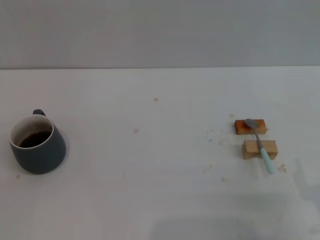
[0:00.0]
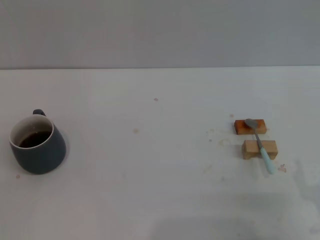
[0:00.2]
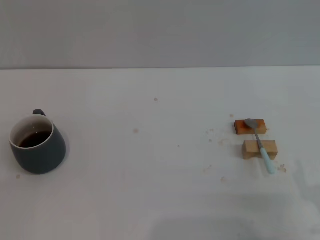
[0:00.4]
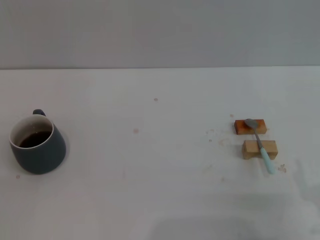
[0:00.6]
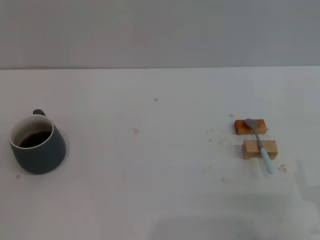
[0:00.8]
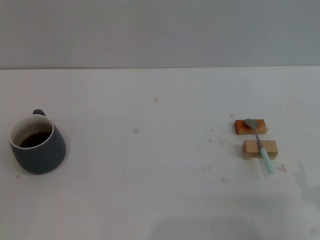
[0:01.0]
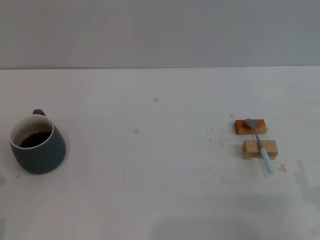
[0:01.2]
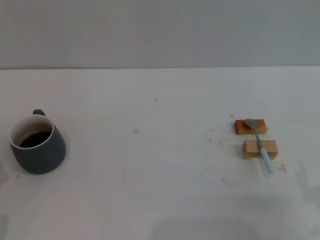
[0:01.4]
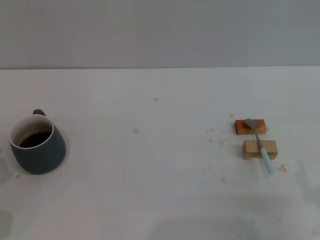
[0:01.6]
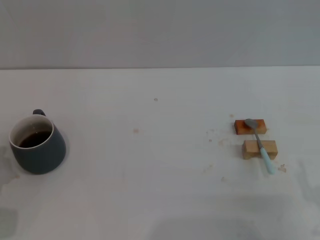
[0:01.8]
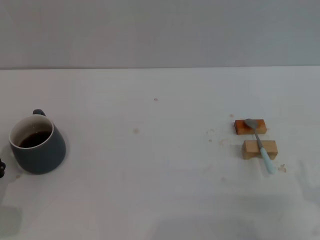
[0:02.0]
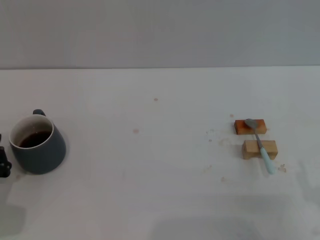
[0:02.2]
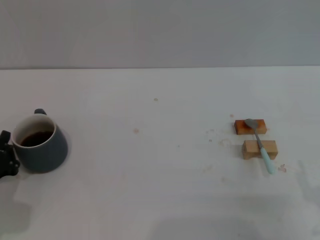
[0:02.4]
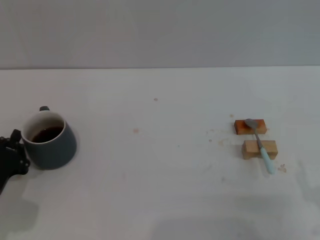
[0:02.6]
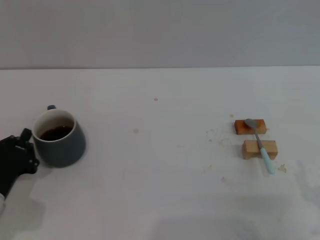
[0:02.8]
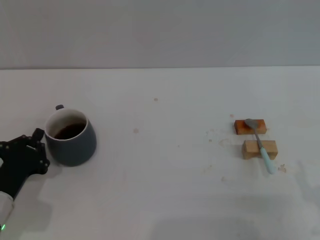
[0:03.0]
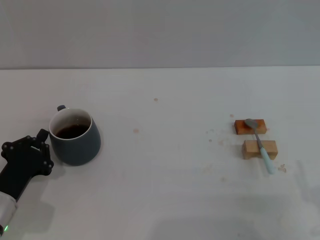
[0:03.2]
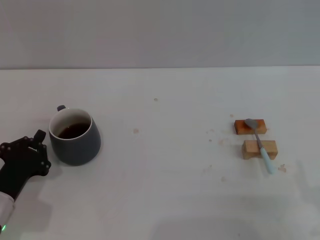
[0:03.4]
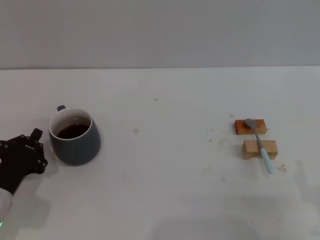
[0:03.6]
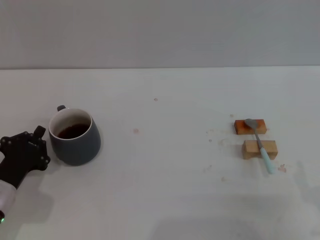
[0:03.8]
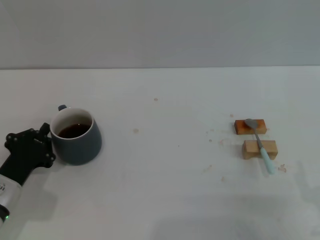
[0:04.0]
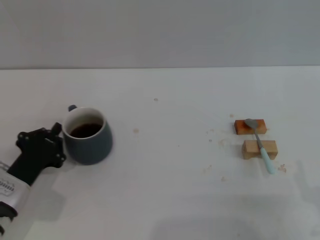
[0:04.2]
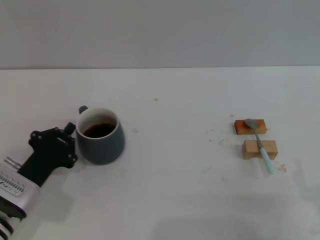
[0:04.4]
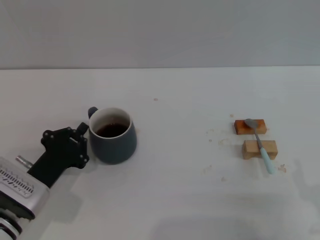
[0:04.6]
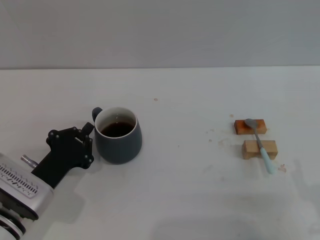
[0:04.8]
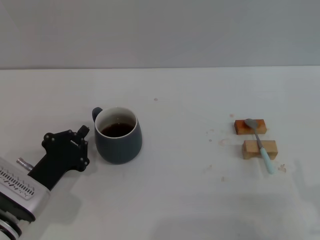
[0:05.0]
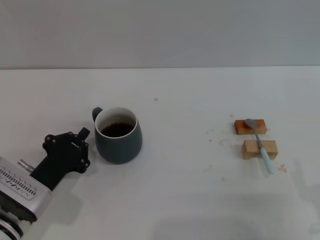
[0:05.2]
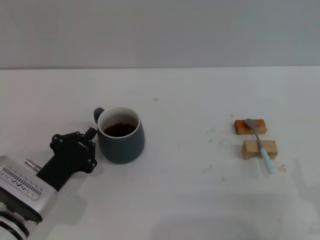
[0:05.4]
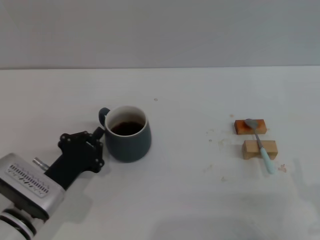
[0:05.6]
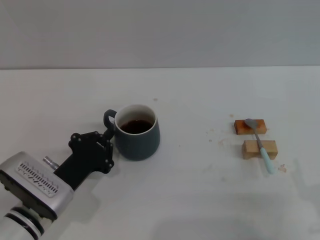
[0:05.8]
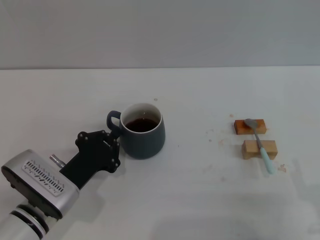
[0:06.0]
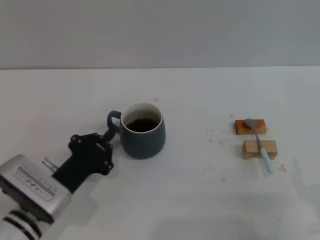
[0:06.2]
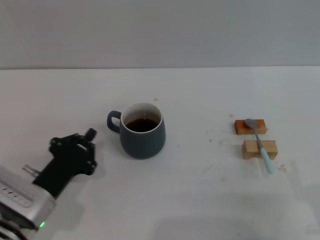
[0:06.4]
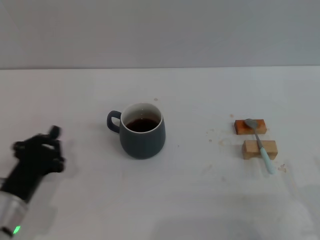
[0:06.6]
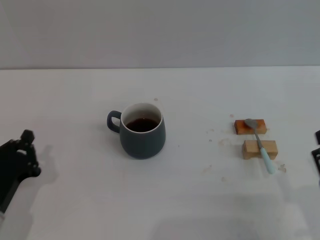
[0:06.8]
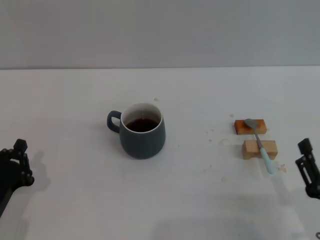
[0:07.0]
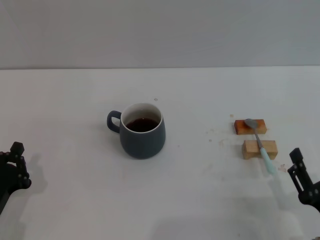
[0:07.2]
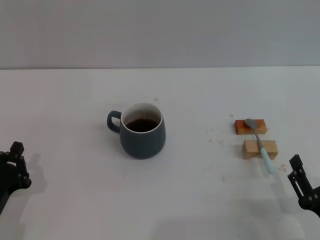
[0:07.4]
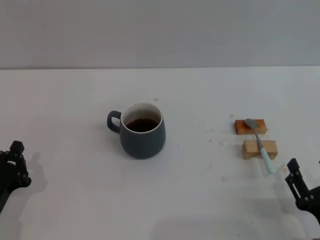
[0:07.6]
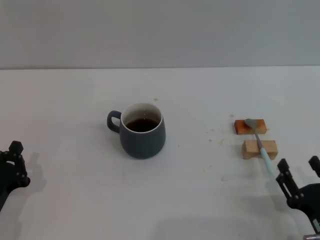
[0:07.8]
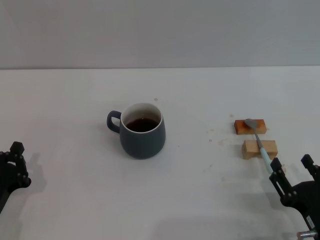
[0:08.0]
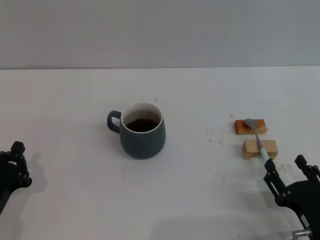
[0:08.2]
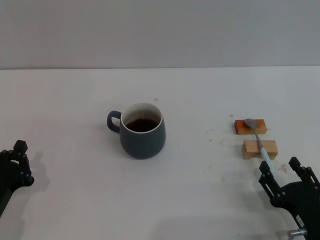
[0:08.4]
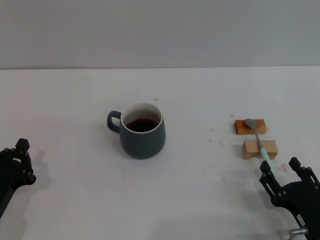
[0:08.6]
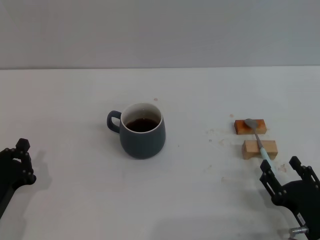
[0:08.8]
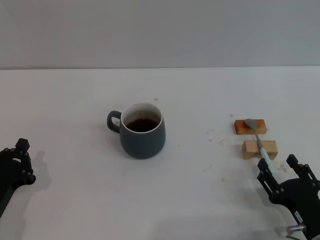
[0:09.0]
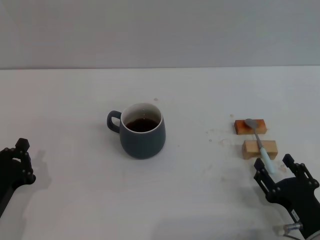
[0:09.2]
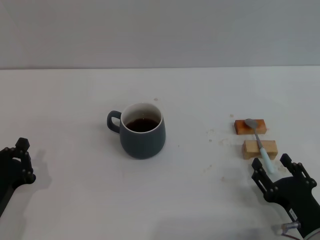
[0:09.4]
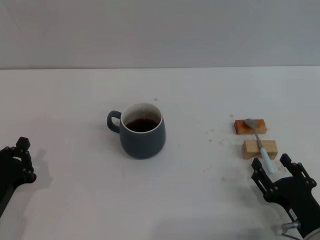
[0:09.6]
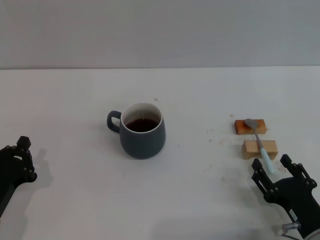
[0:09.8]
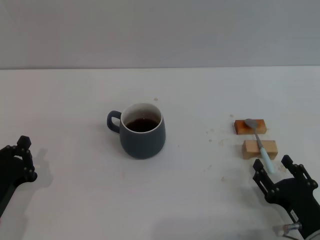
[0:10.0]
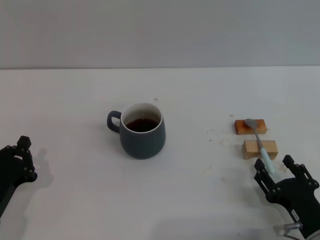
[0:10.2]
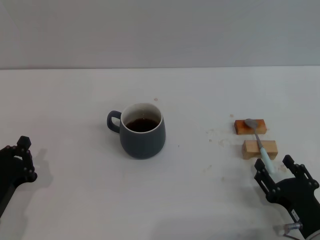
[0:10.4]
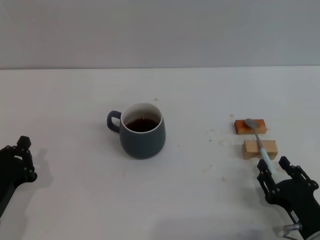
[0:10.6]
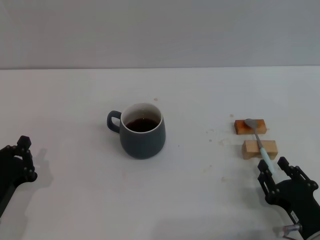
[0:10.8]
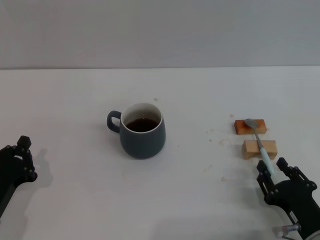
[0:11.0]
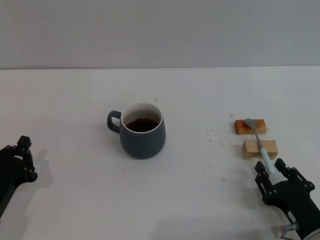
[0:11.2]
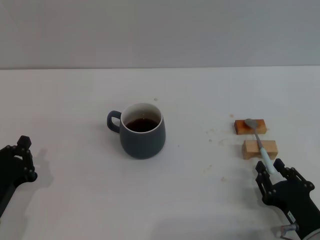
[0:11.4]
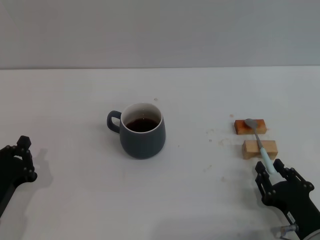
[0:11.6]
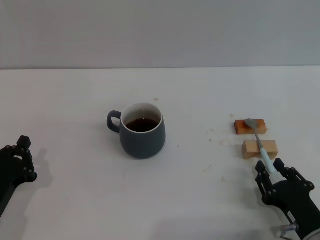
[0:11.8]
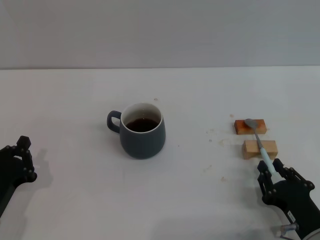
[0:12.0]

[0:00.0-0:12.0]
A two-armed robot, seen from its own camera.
Task of the whole recording: Move the grey cup to the center, lift the blue spoon, stir it three times in the cup, and put the spoon into the cup.
Step, 0:00.0 to 0:06.2: Move the cup with coffee to the center of view with the left gripper.
0:01.6 to 0:03.0: The left gripper is displaced to the right by roughly 5 cm.
0:03.0 to 0:04.4: The grippers move only a little.
0:04.4 to 0:06.0: The left gripper shifts some 5 cm to the right.
0:06.0 to 0:07.6: The left gripper heads to the left and backward, covering some 10 cm.
0:07.6 to 0:09.0: The grippers make only small movements.
0:09.0 to 0:10.4: Neither gripper changes place.
0:10.4 to 0:12.0: The right gripper closes.

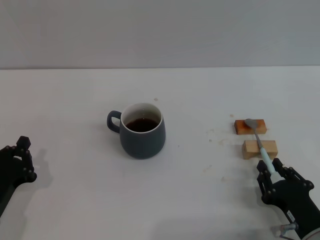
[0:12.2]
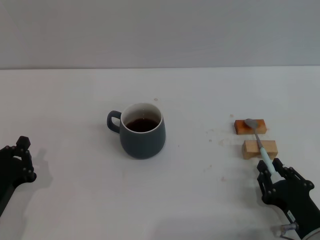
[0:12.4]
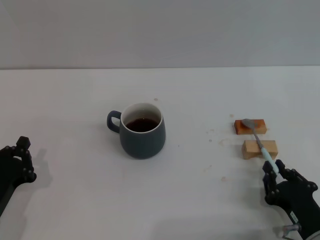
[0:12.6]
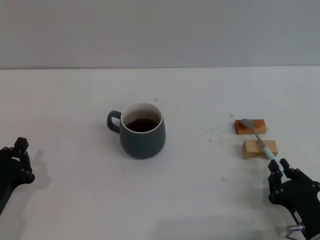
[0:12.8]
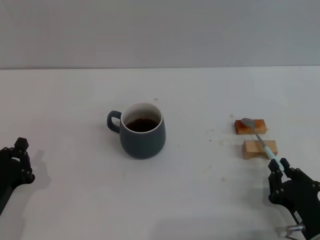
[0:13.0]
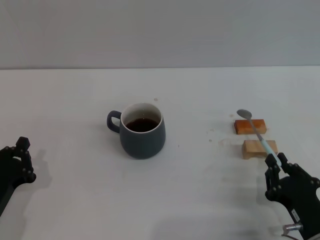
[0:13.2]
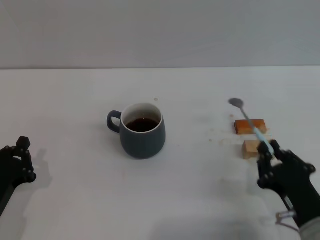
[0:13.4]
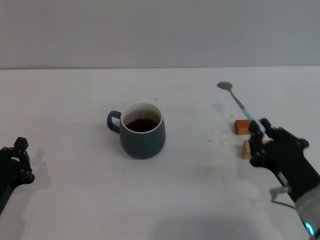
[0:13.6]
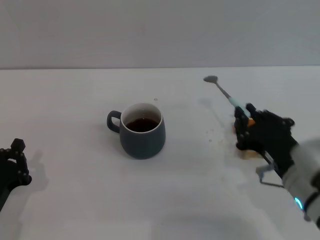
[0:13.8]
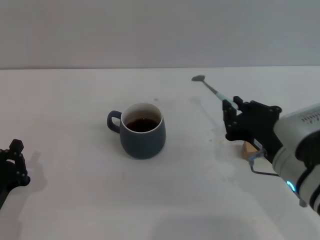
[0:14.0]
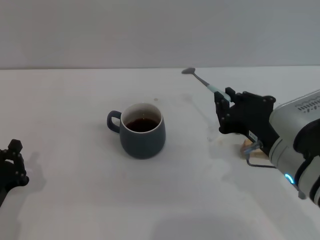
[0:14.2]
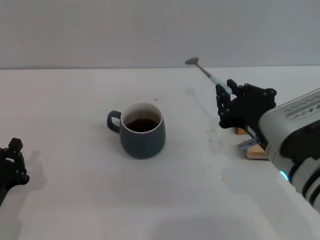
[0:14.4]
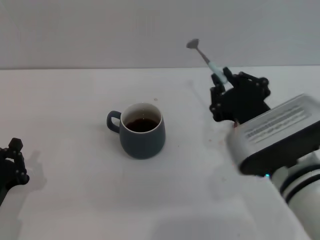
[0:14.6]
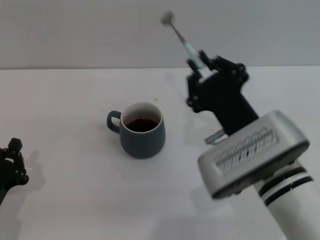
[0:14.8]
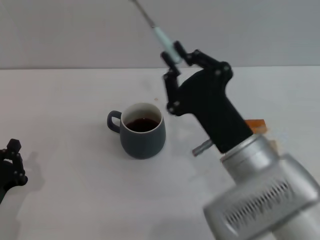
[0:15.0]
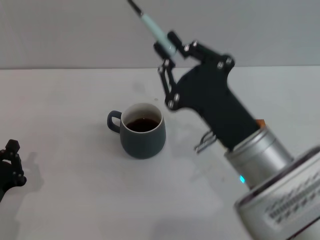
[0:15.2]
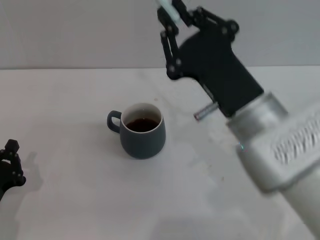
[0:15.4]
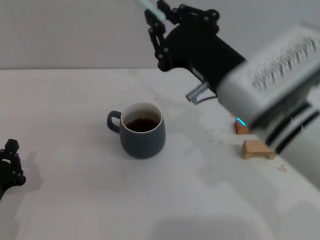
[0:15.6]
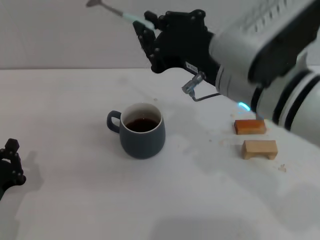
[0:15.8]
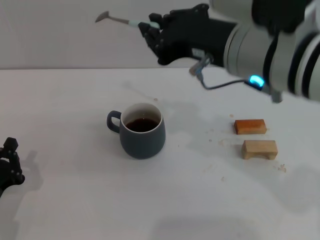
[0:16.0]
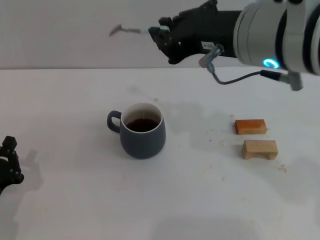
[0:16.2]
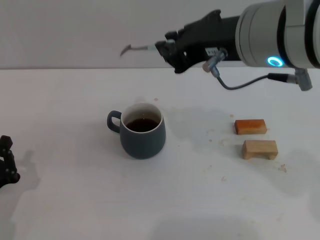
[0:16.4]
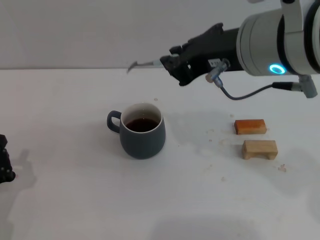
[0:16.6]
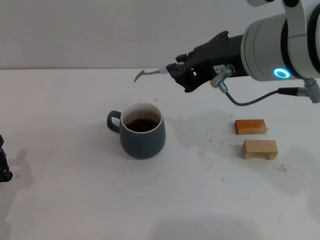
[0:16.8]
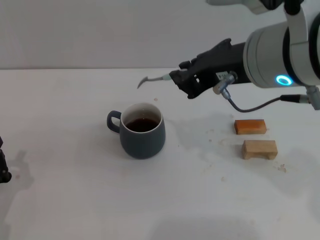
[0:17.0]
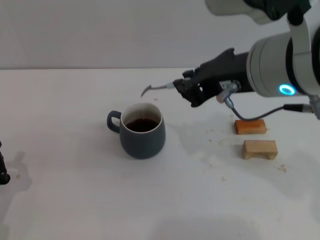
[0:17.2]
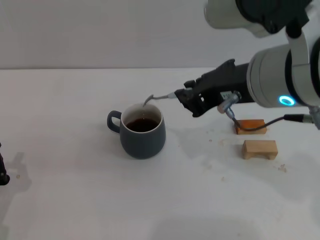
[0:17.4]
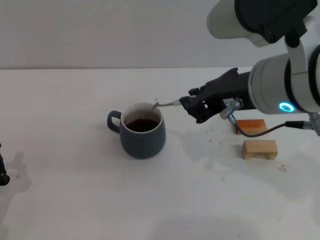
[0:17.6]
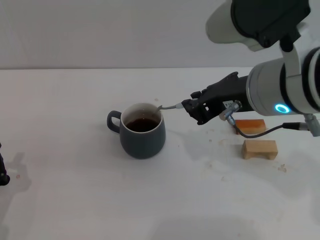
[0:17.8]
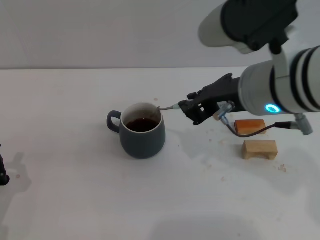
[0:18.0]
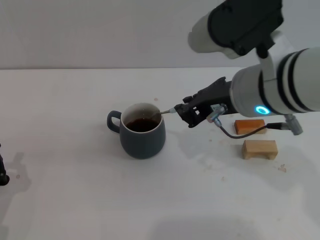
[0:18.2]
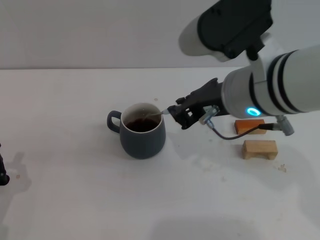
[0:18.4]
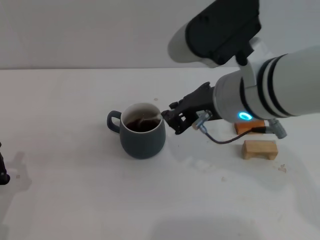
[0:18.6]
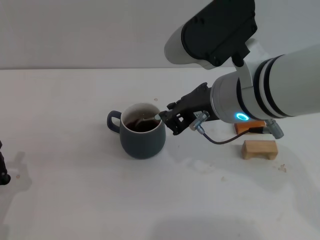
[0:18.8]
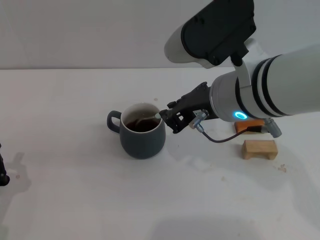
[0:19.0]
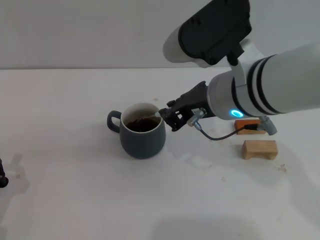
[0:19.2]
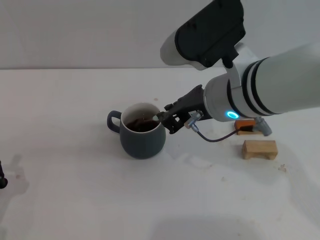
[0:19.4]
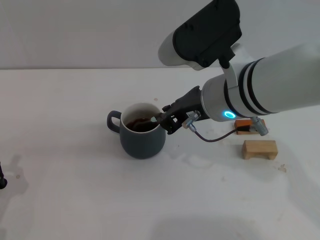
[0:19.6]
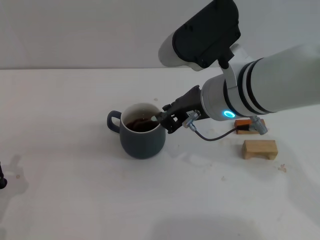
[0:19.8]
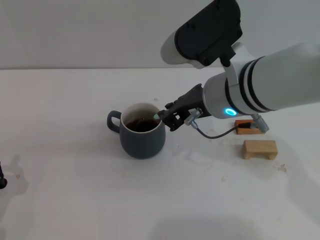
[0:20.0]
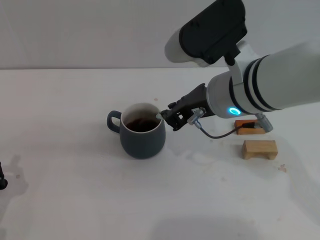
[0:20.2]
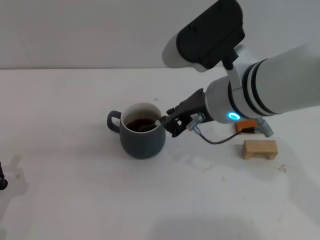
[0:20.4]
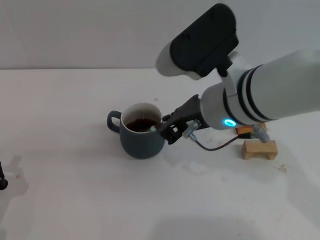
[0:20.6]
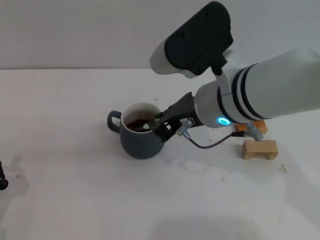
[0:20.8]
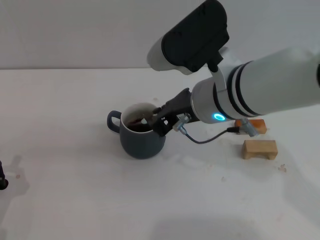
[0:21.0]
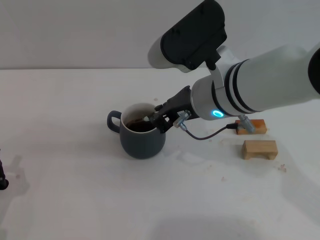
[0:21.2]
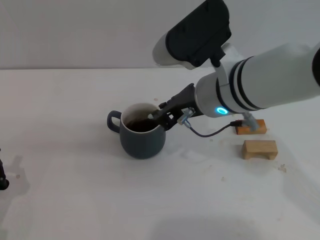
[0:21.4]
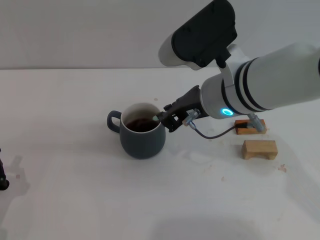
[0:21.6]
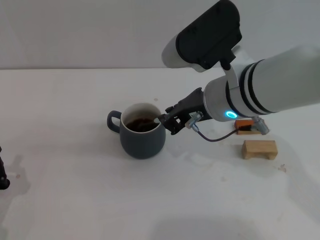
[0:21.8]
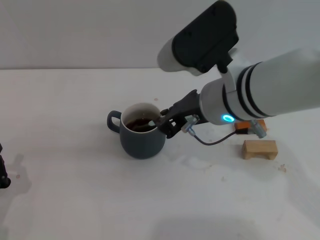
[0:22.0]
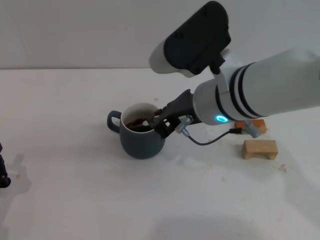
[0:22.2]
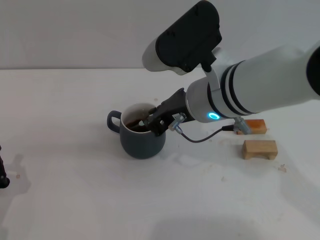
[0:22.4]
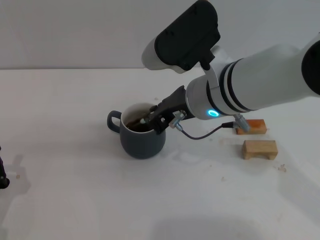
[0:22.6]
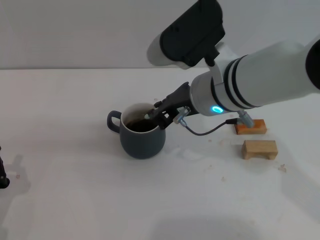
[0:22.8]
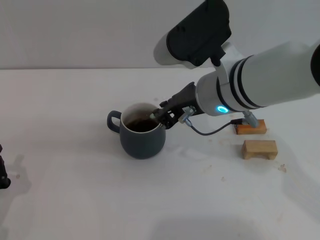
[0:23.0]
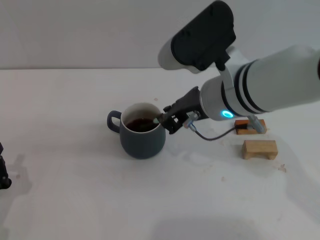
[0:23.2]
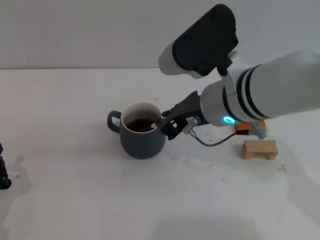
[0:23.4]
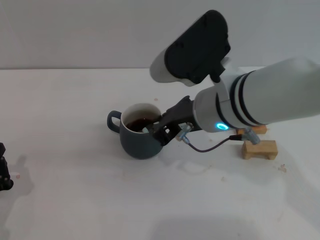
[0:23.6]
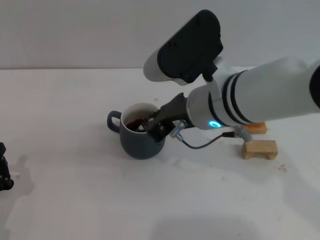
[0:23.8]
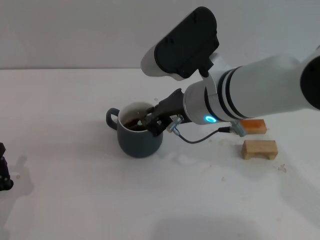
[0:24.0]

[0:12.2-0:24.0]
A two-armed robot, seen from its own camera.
Task of the whole recording: Move the grey cup to the center, lift the blue spoon, stir it three times in the cup, and put the spoon into the cup.
0:12.2 to 0:13.6: The right gripper travels upward by roughly 10 cm, and closes up.
0:13.6 to 0:15.2: The right gripper goes roughly 10 cm to the left and upward.
0:15.2 to 0:16.6: The right gripper moves upward, approximately 15 cm.
0:16.6 to 0:18.2: The right gripper is displaced downward by approximately 5 cm.
0:18.2 to 0:19.6: The grippers make only small movements.
0:19.6 to 0:21.0: Both grippers stay put.
0:21.0 to 0:24.0: The grippers make only small movements.
